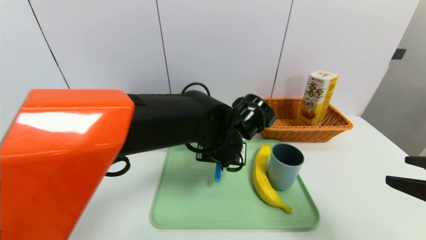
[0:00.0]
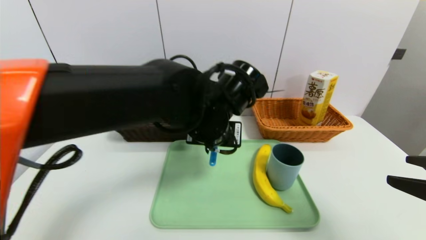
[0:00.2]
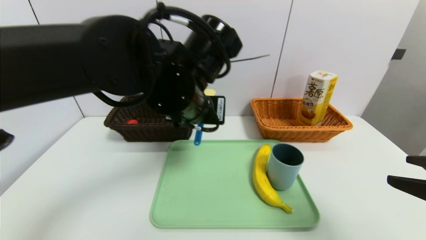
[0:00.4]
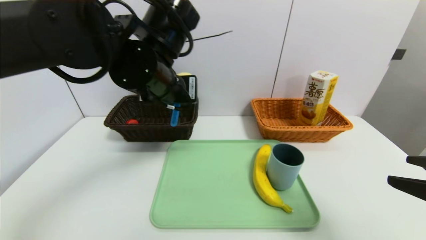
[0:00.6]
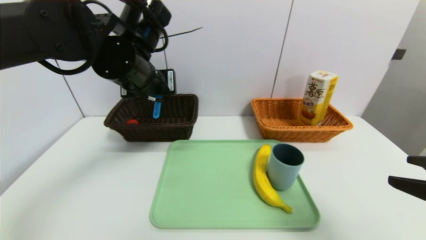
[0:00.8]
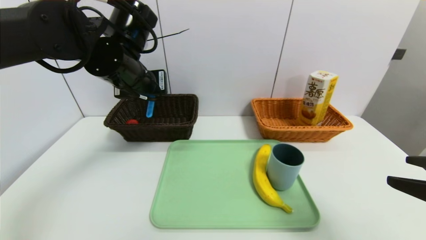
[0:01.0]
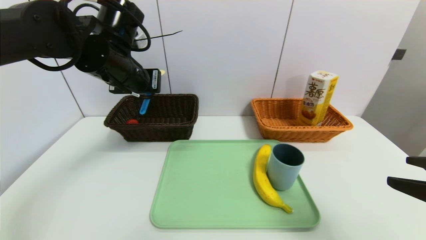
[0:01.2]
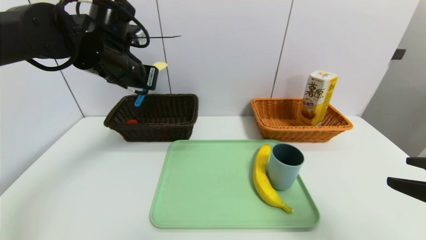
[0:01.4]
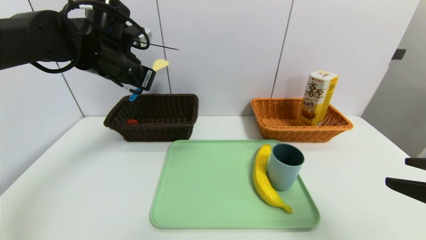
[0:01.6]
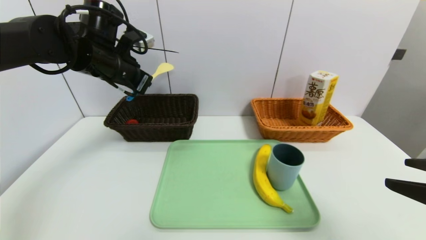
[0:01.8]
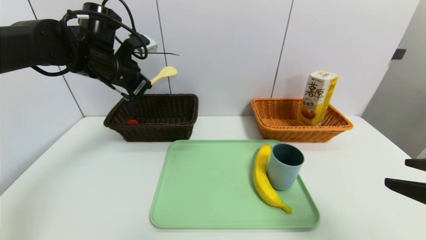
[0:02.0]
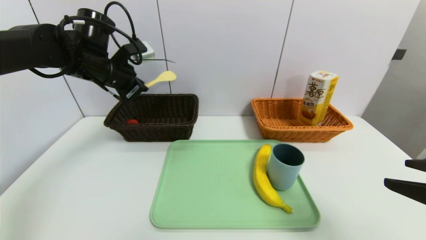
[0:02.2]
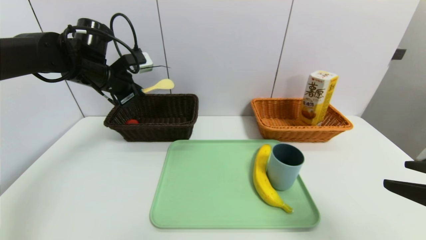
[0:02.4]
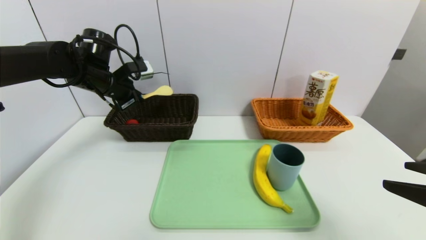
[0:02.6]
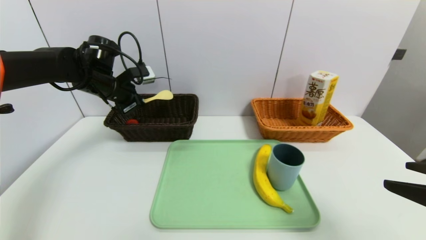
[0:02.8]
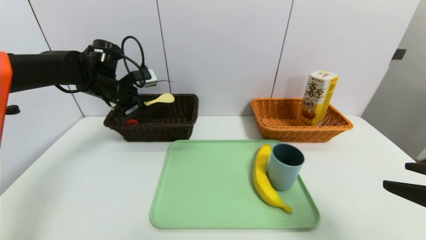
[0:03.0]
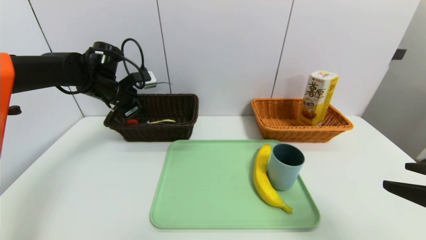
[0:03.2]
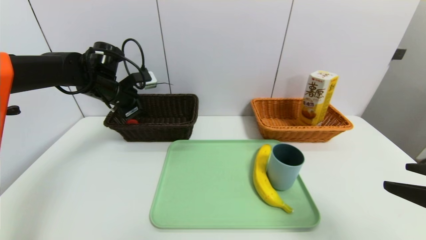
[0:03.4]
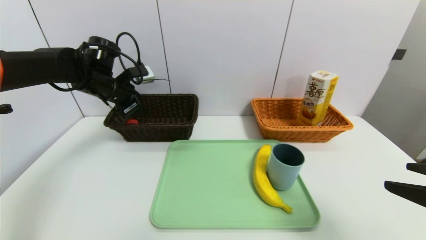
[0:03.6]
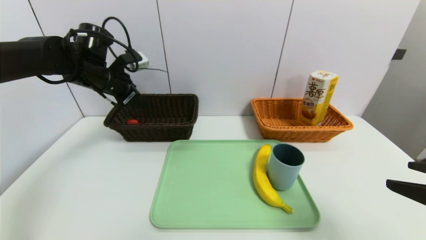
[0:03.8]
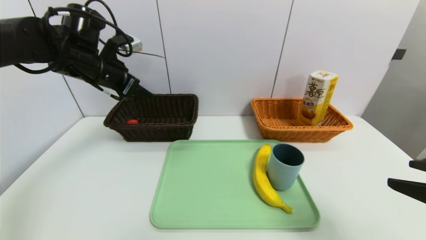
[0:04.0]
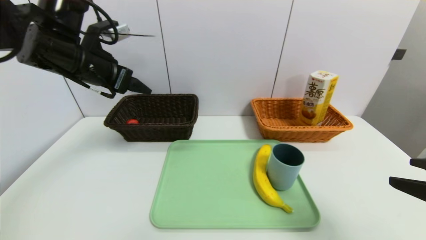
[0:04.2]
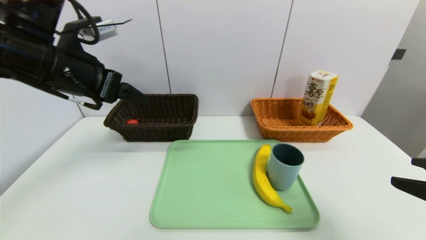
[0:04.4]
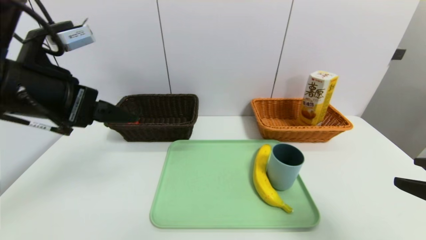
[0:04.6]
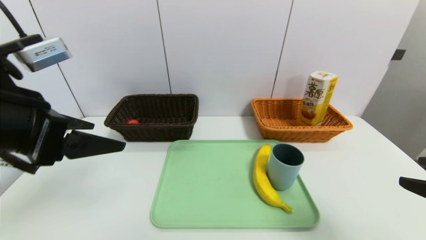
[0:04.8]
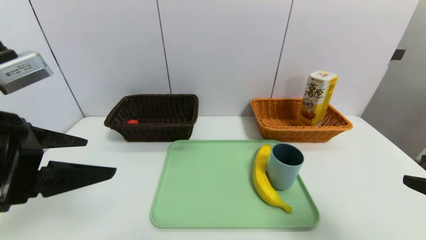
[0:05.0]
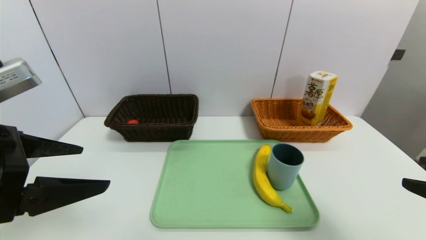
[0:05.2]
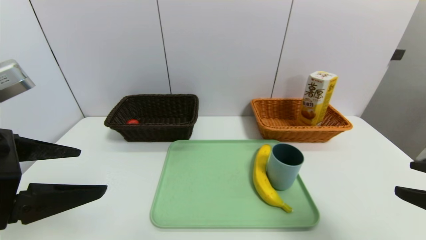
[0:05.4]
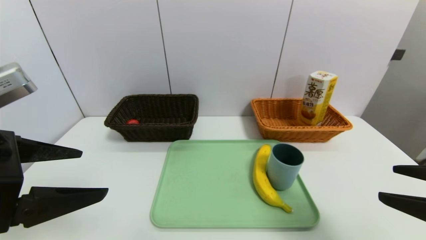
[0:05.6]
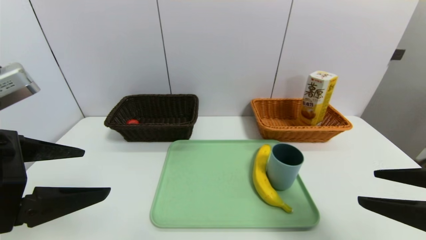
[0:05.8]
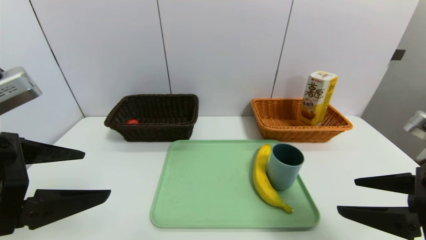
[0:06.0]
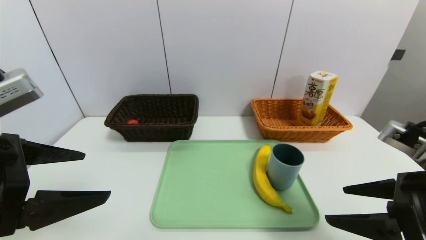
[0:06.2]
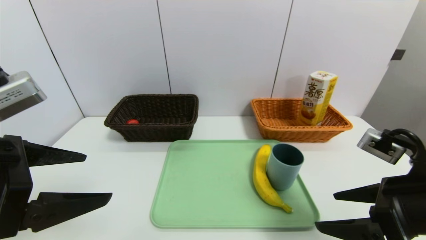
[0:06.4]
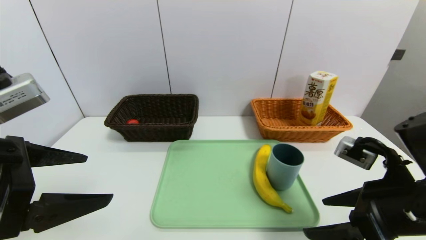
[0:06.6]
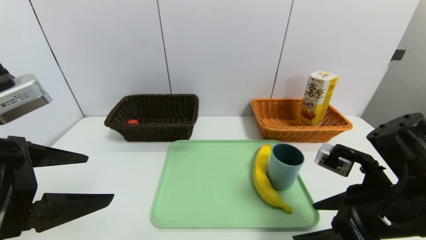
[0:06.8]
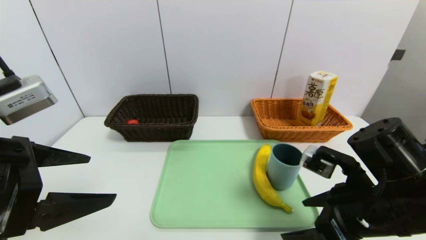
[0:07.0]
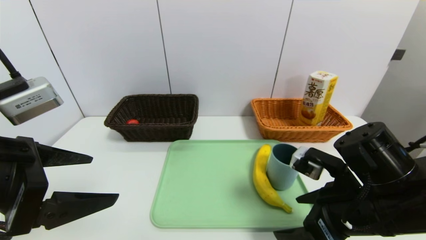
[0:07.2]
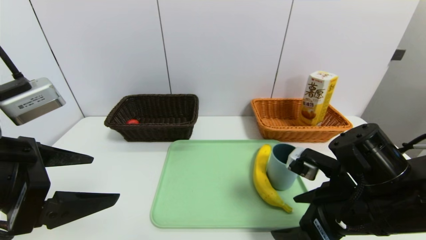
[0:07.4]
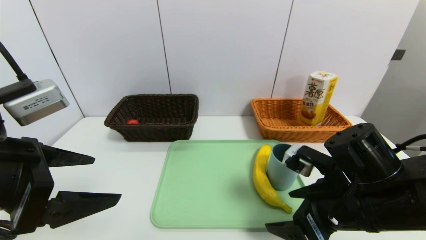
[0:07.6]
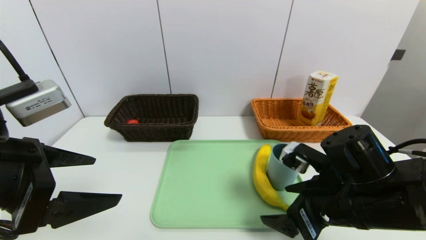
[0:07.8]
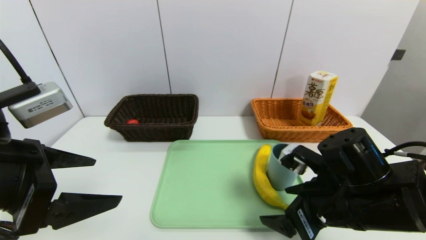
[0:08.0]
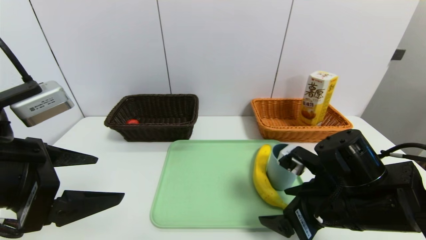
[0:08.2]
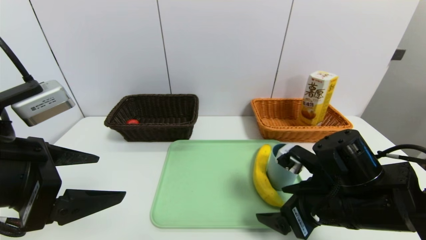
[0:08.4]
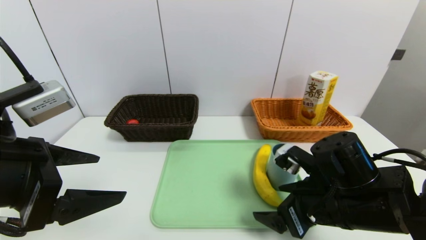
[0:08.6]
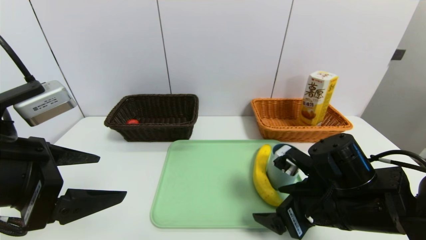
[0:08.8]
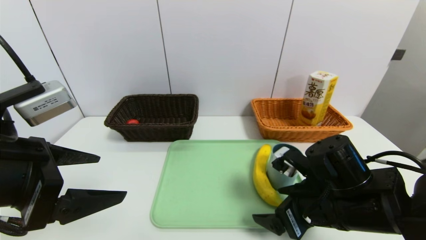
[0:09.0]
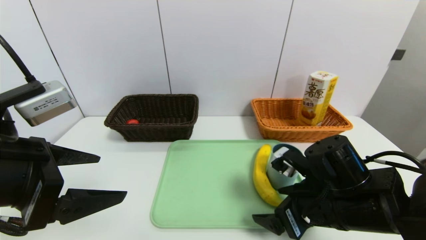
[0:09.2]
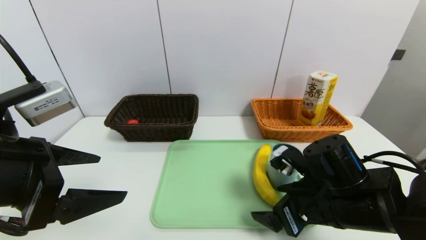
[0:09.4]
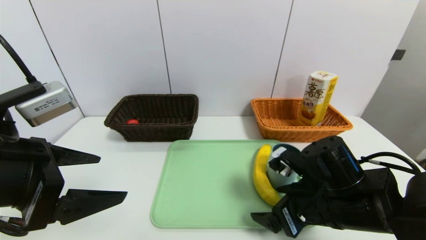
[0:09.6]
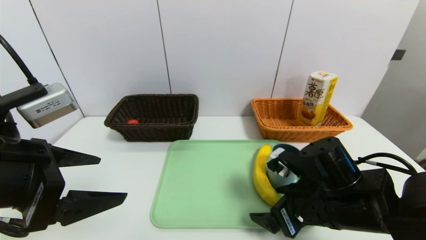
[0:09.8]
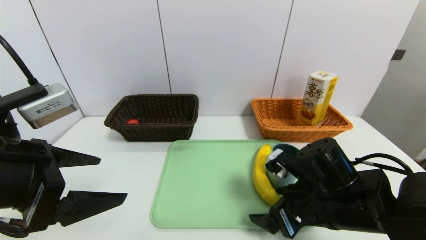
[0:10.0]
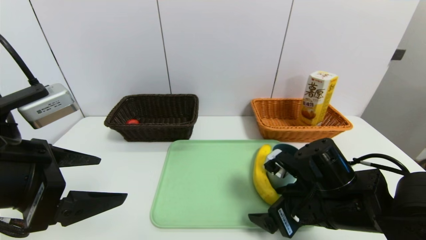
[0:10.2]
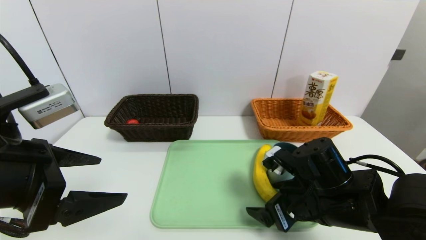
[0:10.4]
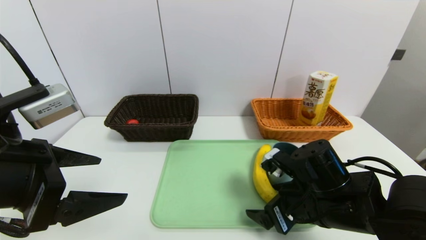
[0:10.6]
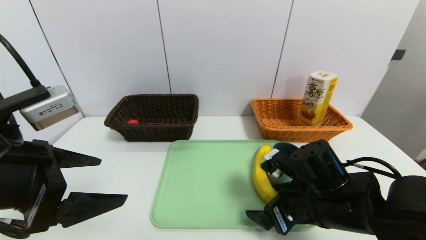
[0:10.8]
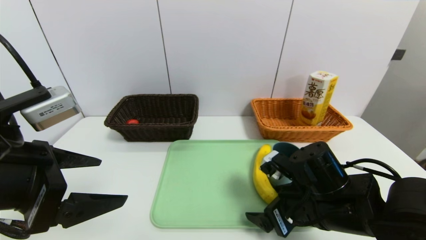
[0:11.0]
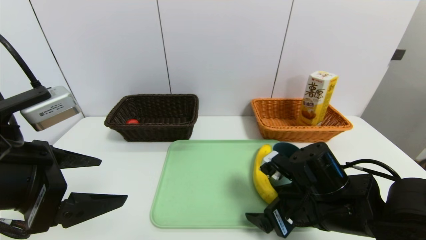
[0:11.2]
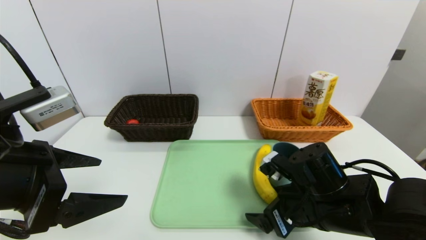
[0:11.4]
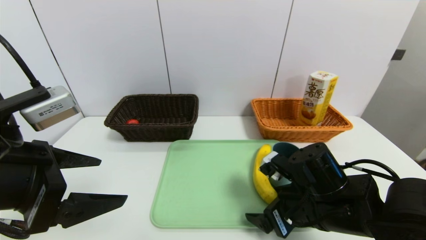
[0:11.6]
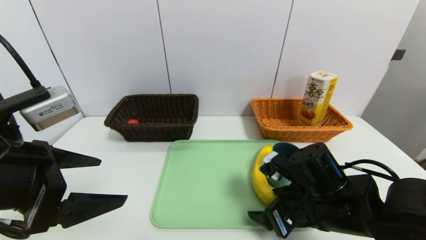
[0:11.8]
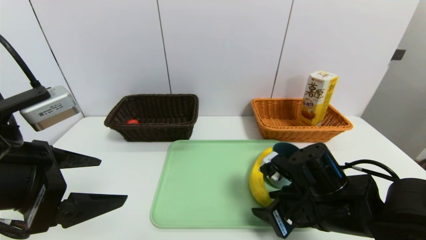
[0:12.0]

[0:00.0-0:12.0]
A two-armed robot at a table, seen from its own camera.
Task of the whole recording: place the food in the right basket with the right gripper, and place the non food items in the left basket with the left gripper.
Step, 0:00.0 to 0:03.8: Grasp the spoon and put it in the left basket.
0:00.0 to 0:01.6: The left gripper shifts some 25 cm to the left and upward.
0:01.6 to 0:03.0: The left gripper heads downward, to the left and forward, covering some 10 cm.
0:03.0 to 0:04.4: The left gripper is displaced backward and upward by about 20 cm, and opens.
0:04.4 to 0:06.0: The left gripper moves backward, some 15 cm. The right gripper changes place by some 5 cm.
0:06.0 to 0:07.6: The right gripper heads to the left, downward and forward, covering approximately 15 cm.
0:07.6 to 0:10.4: There are only small adjustments of the grippers.
0:10.4 to 0:12.0: The right gripper closes up.

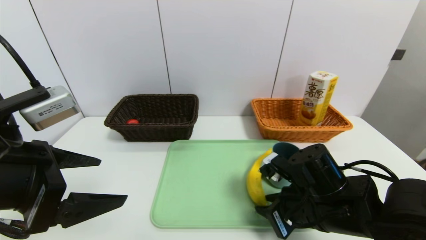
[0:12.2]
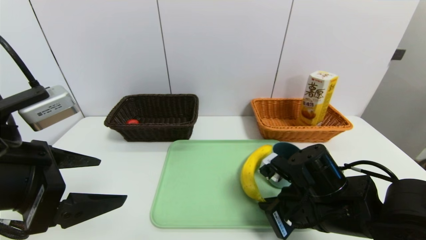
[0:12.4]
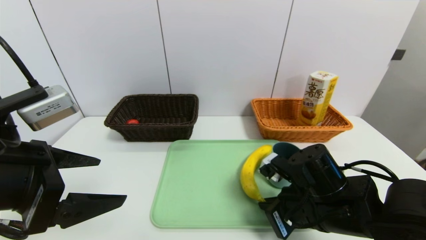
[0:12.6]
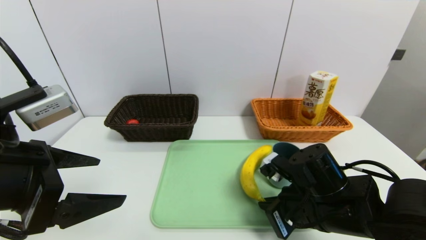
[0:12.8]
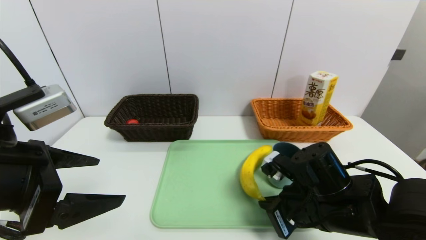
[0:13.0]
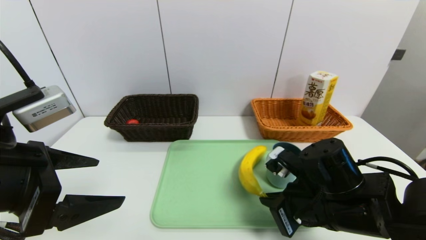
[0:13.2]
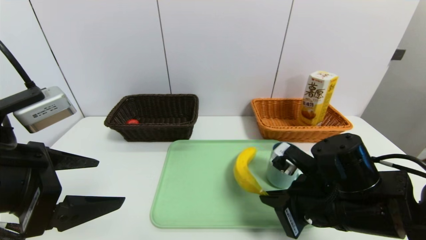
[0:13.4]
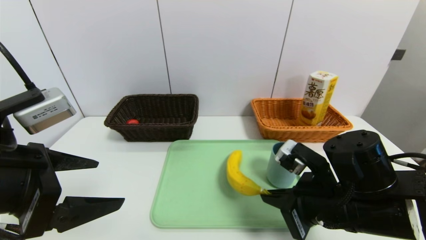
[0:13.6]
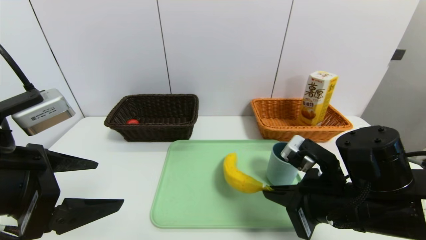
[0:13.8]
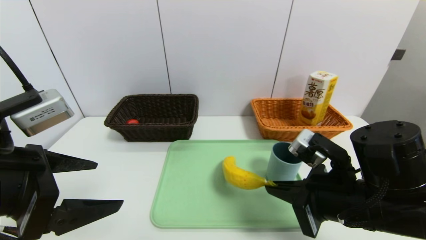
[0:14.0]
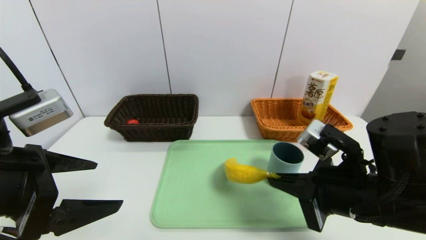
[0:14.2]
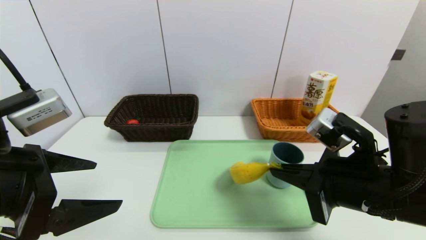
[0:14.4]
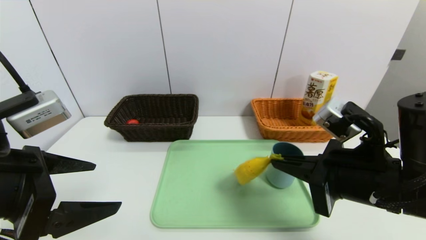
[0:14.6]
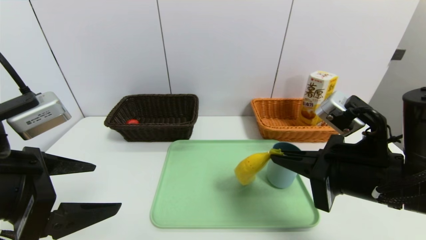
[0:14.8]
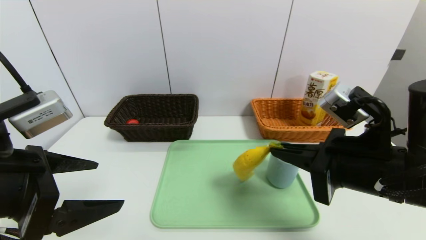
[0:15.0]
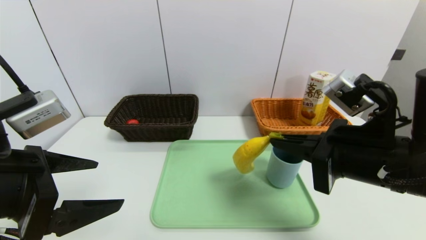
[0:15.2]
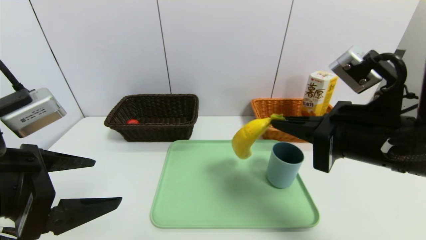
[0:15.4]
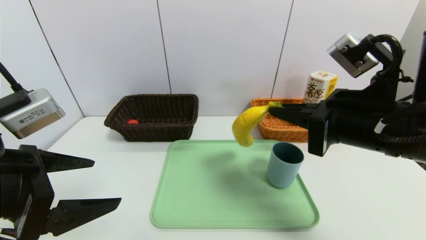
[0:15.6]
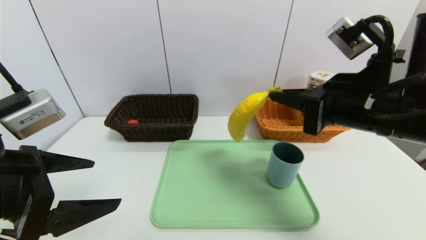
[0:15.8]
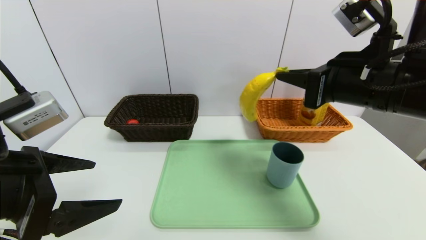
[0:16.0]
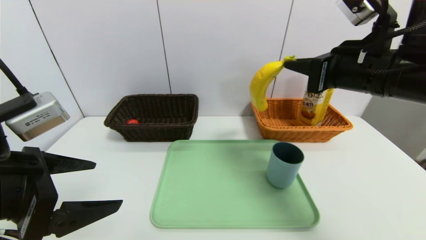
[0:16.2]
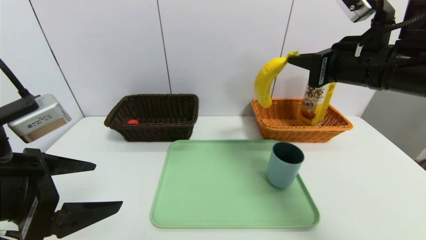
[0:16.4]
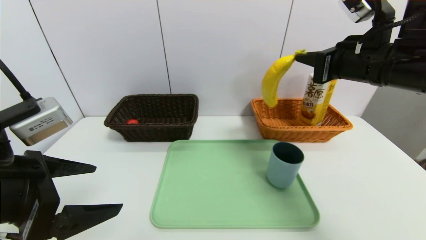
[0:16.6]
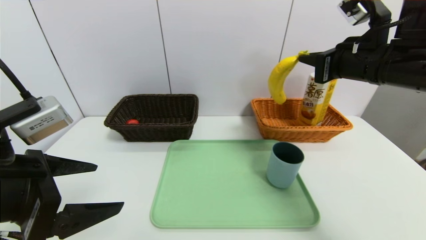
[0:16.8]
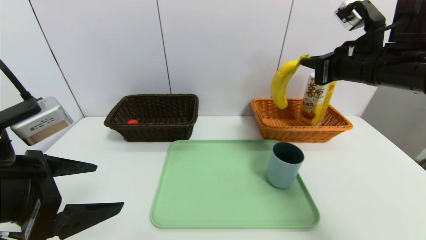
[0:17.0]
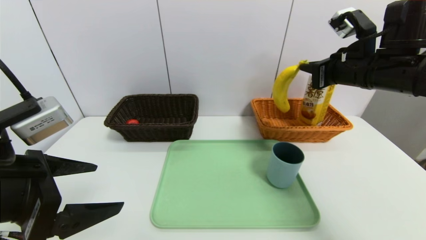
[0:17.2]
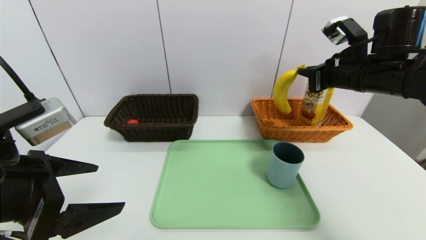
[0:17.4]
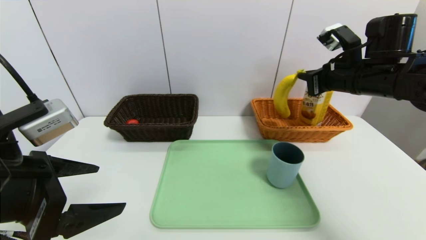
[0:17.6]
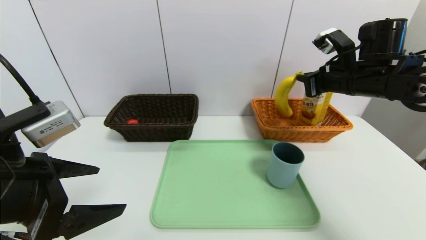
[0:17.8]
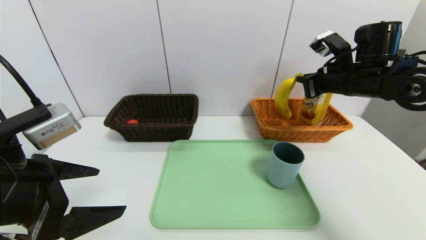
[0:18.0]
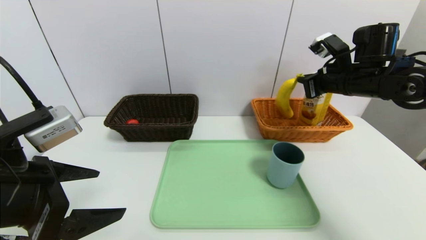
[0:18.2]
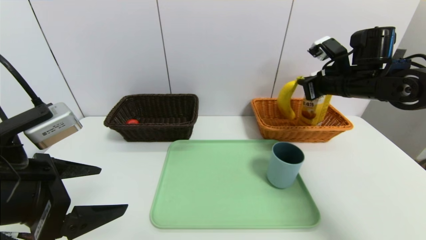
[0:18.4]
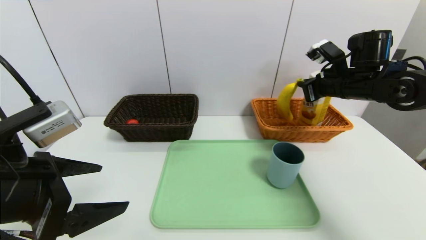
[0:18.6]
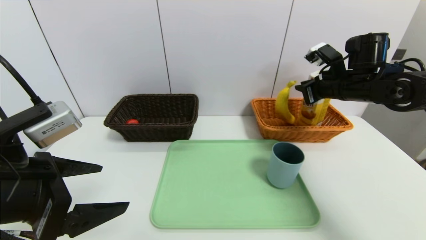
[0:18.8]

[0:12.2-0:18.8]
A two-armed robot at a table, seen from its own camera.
Task of the whole recording: place the food in the right basket with the right gripper, and place the non food items in the left basket with the left gripper.
0:12.2 to 0:13.8: The right gripper moves upward, approximately 5 cm.
0:13.8 to 0:15.4: The right gripper is displaced upward by approximately 10 cm.
0:15.4 to 0:17.2: The right gripper shifts approximately 15 cm forward and to the right.
0:17.2 to 0:18.8: The right gripper moves forward, roughly 5 cm.
